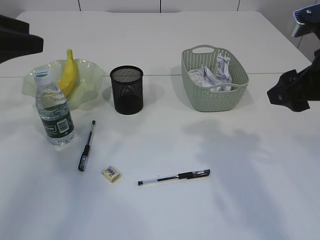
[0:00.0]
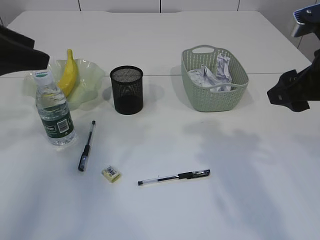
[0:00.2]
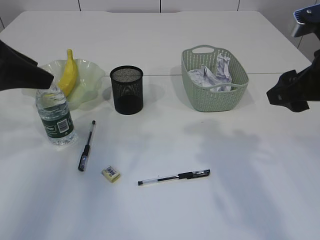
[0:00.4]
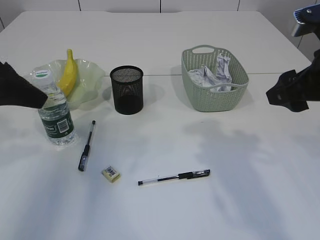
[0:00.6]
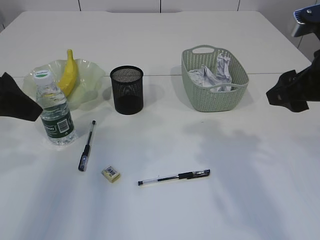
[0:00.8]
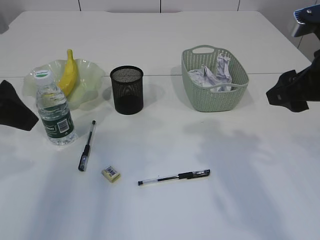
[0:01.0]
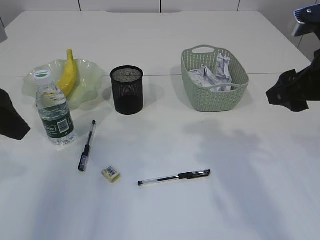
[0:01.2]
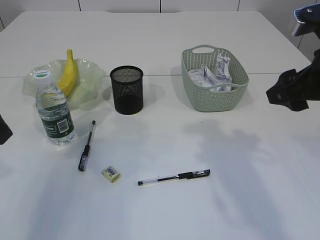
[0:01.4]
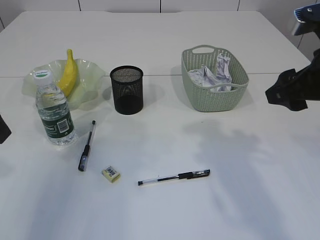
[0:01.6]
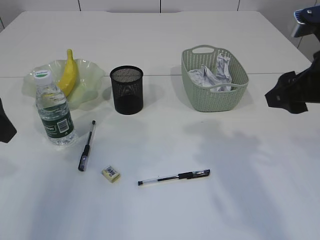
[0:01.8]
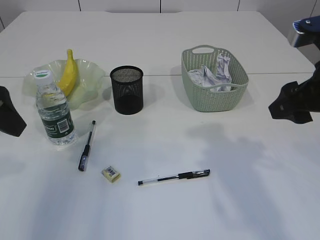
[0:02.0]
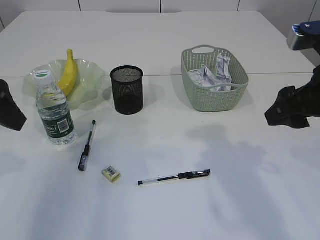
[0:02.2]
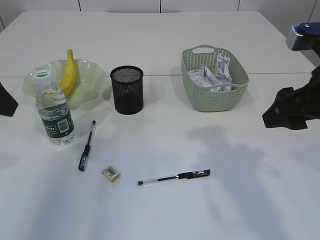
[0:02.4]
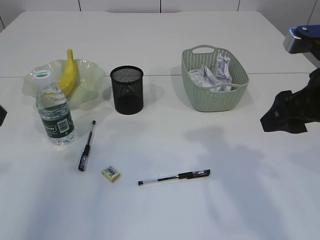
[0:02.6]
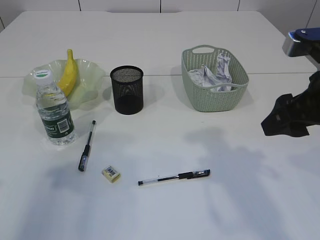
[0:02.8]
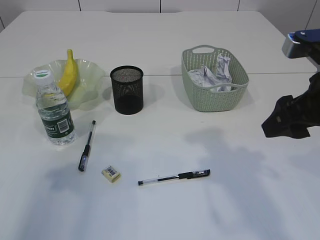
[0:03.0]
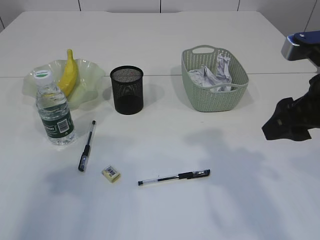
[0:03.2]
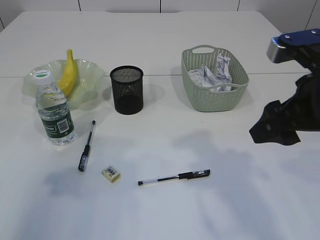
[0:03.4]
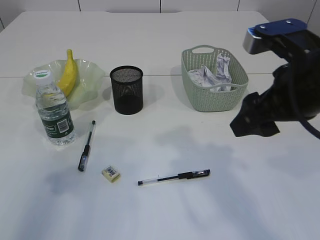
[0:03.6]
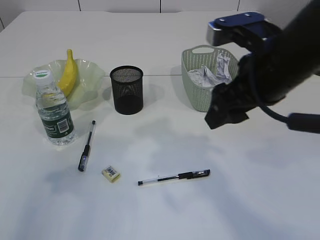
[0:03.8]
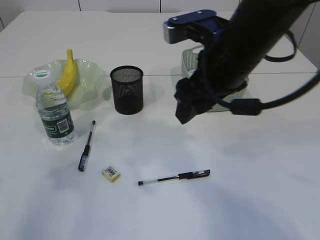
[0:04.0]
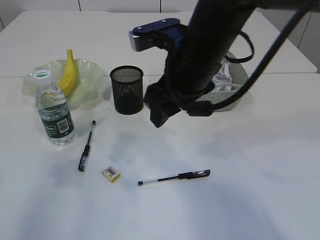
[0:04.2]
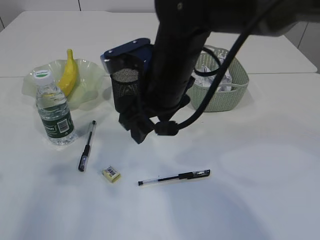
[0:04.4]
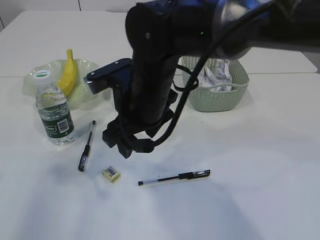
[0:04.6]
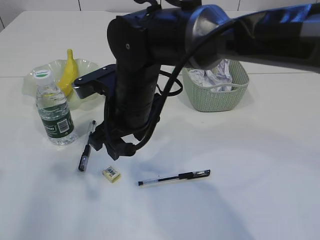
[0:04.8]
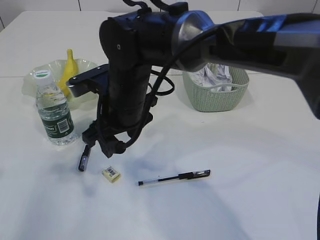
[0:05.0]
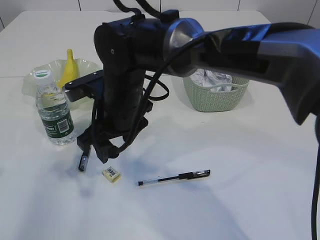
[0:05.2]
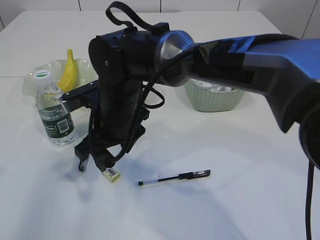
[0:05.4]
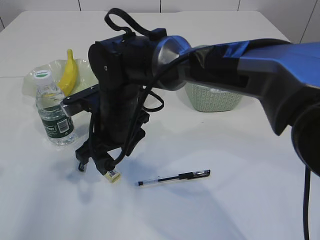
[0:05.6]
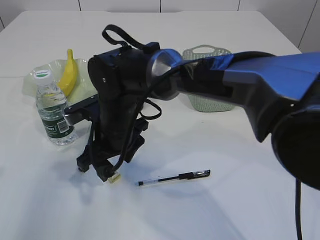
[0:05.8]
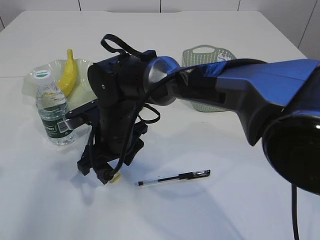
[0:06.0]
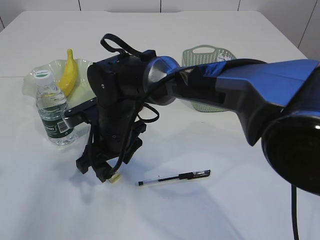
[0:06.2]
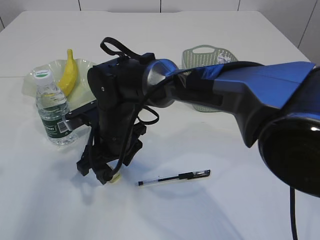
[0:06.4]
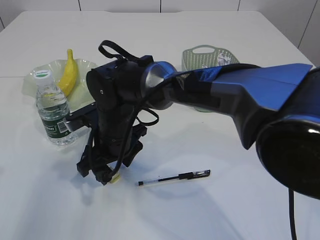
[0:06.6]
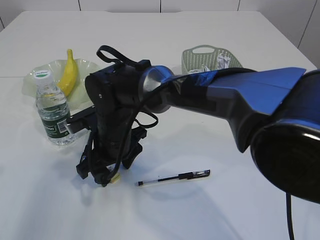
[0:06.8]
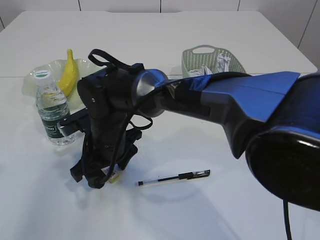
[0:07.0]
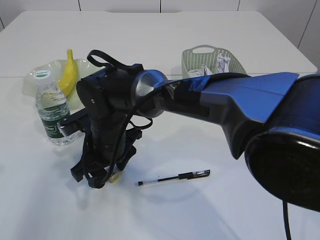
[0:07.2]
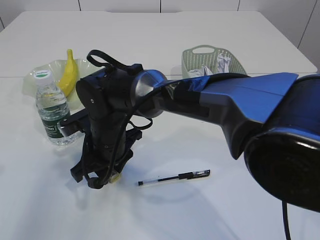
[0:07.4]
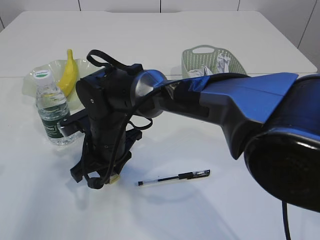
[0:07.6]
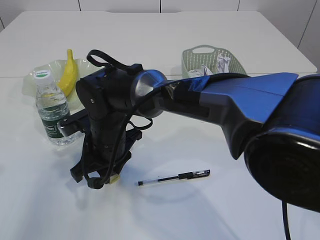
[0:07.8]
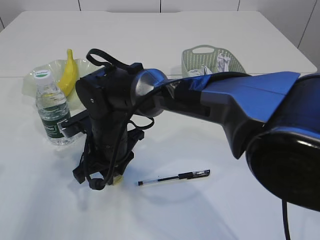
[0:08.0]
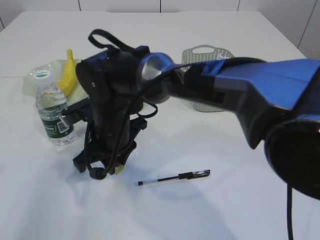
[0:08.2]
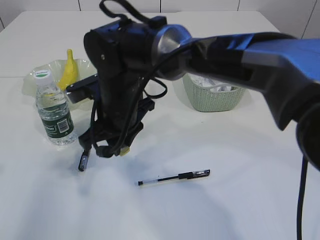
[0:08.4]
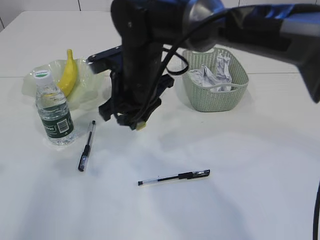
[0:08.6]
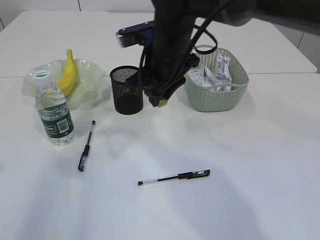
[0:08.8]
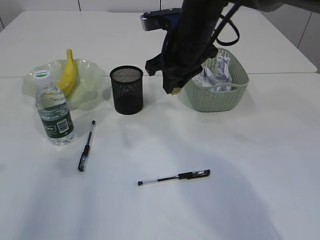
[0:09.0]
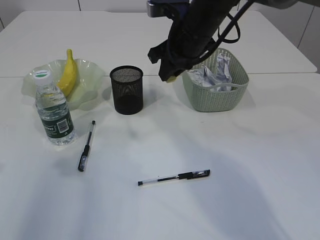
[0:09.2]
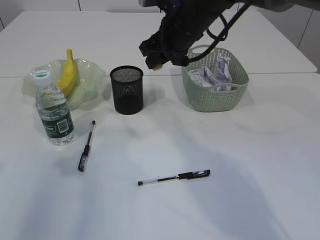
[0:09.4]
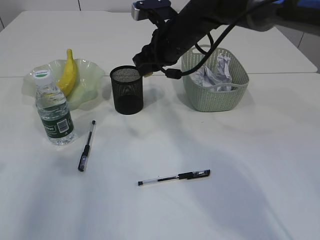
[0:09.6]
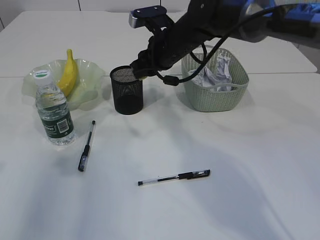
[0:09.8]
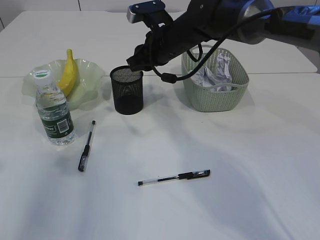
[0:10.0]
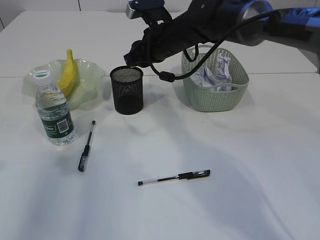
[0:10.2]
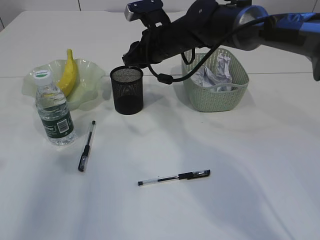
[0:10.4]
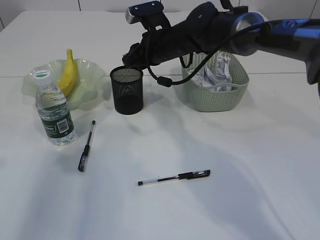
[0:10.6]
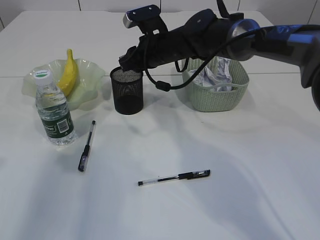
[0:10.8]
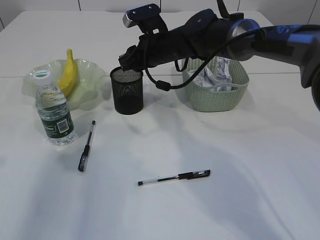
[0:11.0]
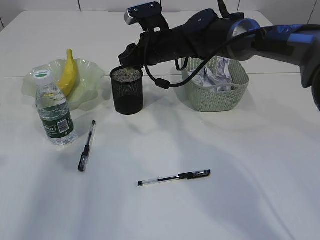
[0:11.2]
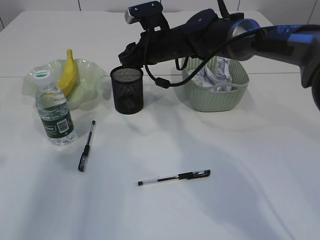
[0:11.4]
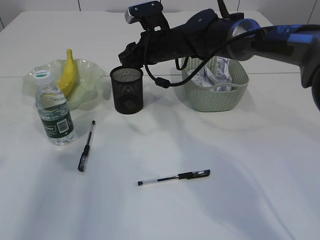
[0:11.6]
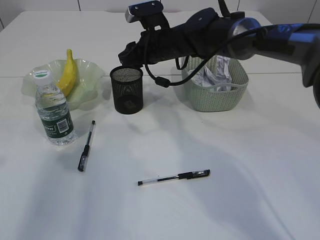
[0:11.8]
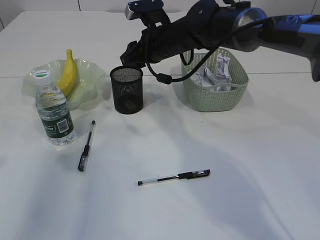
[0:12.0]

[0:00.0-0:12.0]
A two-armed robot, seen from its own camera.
Step, 0:00.0 to 0:08.4: Pick up the eraser.
0:00.0 to 0:01.6: The left gripper shifts some 5 cm backward.
0:03.0 to 0:04.4: The right gripper is displaced to the left by about 20 cm.
0:04.4 to 0:06.0: The right gripper travels downward and to the left by roughly 15 cm.
0:06.0 to 0:07.6: The right gripper closes.
0:07.6 to 0:09.0: The right gripper goes some 20 cm to the right, upward and forward.
0:09.0 to 0:10.4: The right gripper is displaced forward by some 5 cm.
0:10.4 to 0:12.0: There are only small adjustments of the grippers.

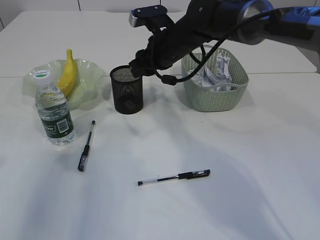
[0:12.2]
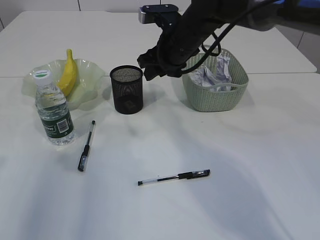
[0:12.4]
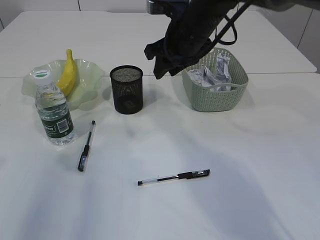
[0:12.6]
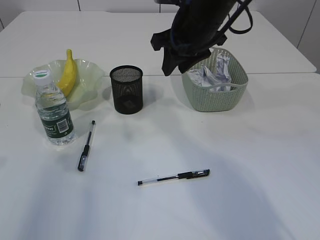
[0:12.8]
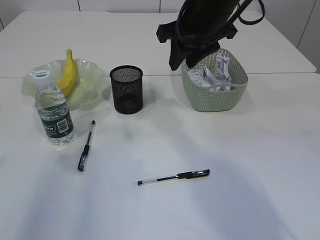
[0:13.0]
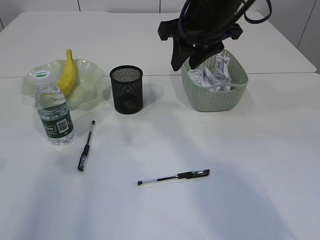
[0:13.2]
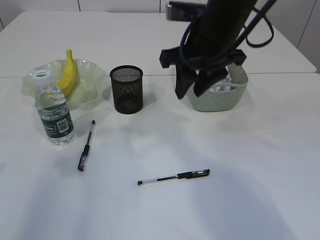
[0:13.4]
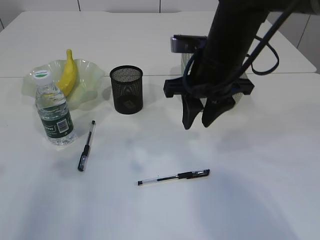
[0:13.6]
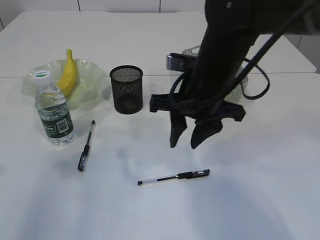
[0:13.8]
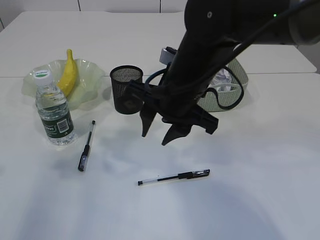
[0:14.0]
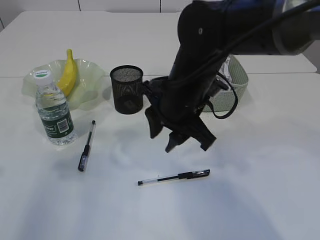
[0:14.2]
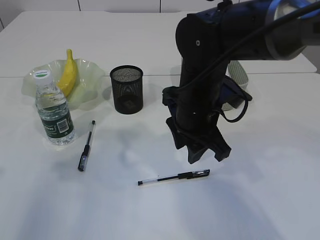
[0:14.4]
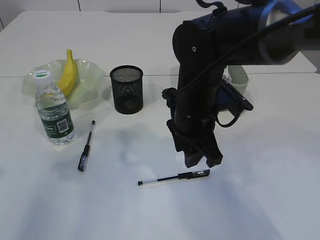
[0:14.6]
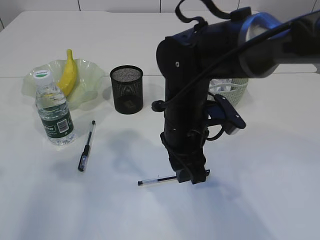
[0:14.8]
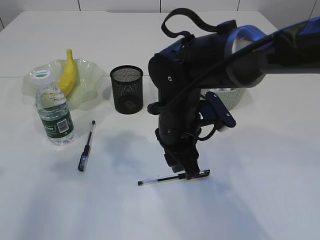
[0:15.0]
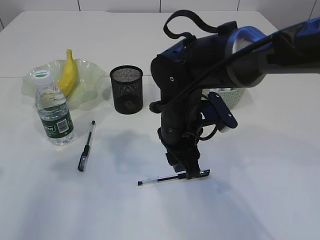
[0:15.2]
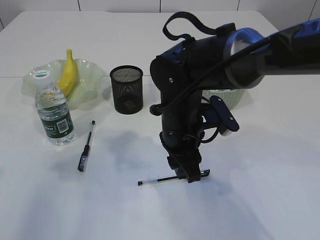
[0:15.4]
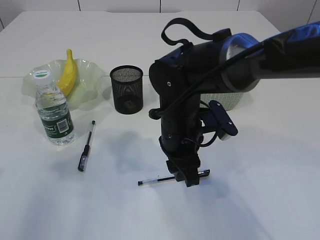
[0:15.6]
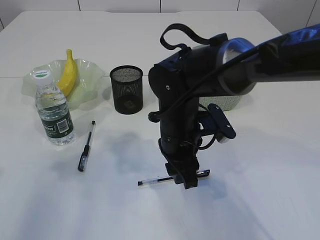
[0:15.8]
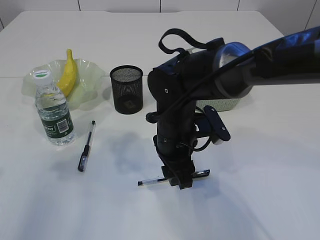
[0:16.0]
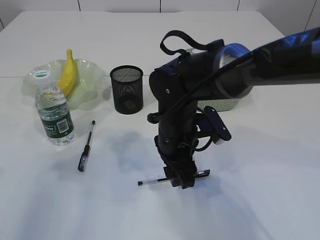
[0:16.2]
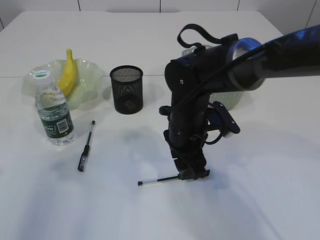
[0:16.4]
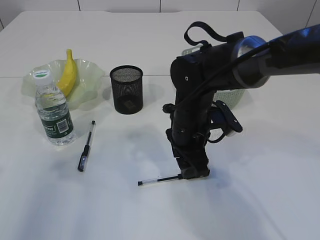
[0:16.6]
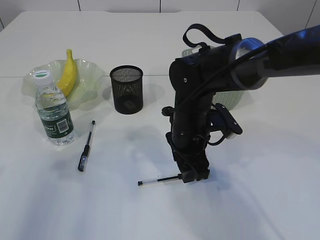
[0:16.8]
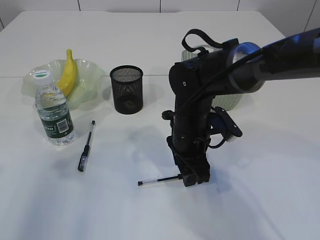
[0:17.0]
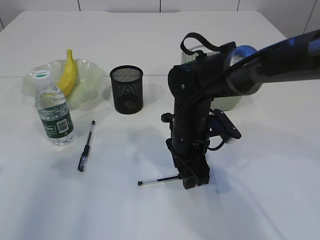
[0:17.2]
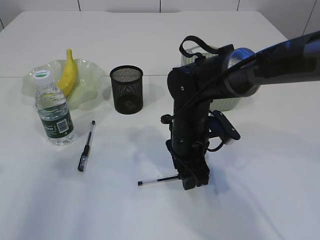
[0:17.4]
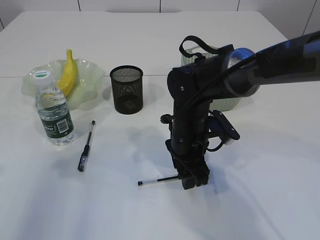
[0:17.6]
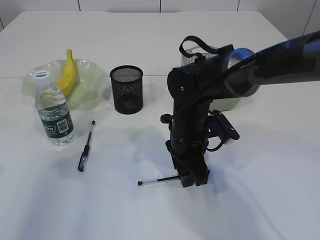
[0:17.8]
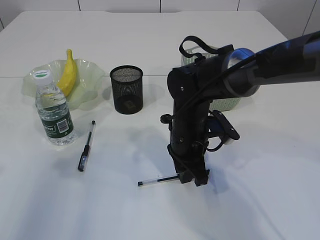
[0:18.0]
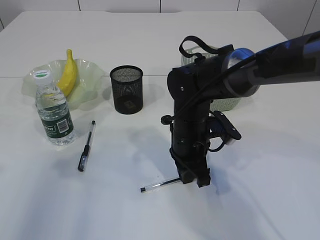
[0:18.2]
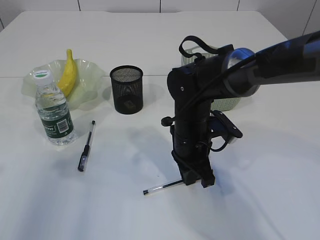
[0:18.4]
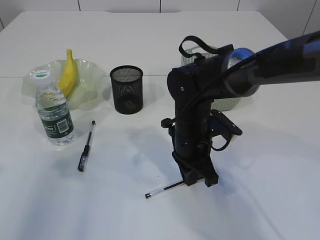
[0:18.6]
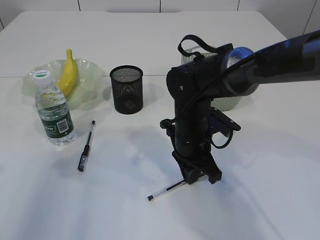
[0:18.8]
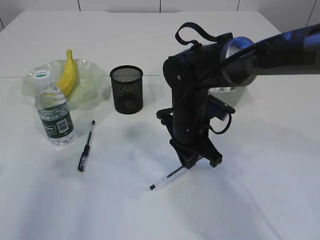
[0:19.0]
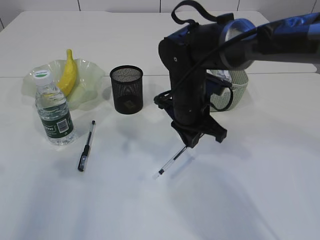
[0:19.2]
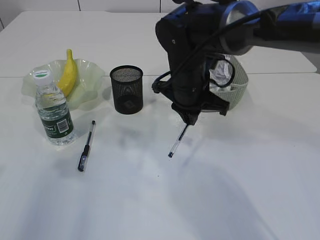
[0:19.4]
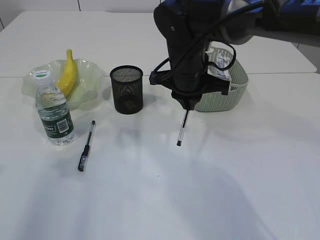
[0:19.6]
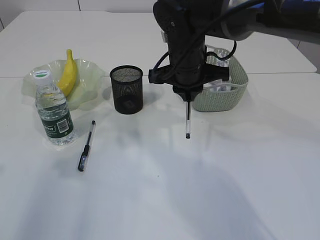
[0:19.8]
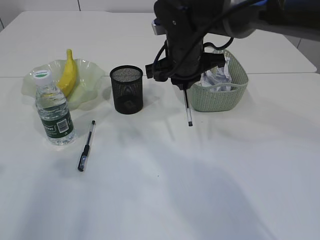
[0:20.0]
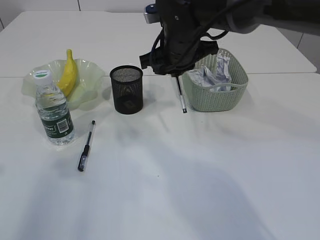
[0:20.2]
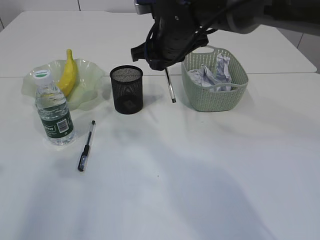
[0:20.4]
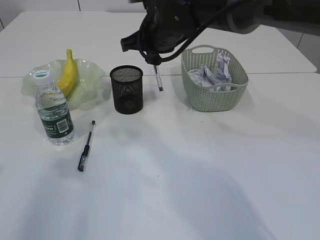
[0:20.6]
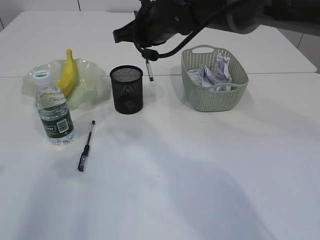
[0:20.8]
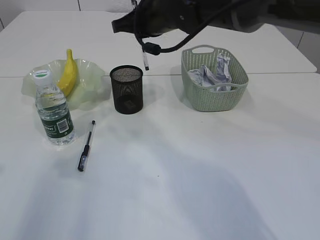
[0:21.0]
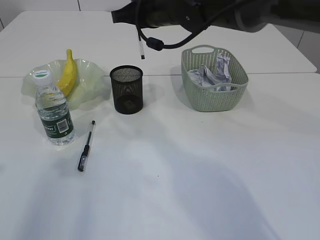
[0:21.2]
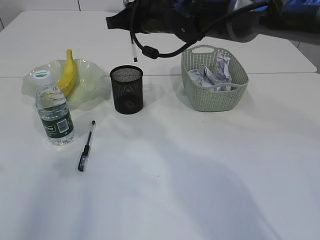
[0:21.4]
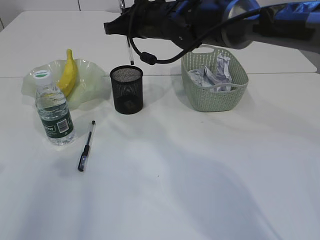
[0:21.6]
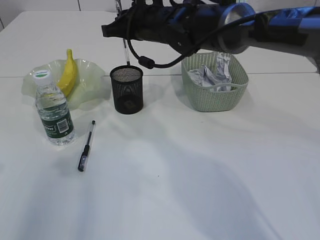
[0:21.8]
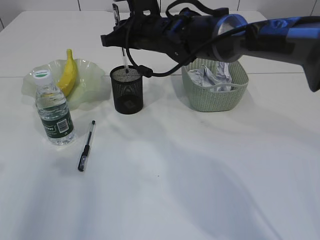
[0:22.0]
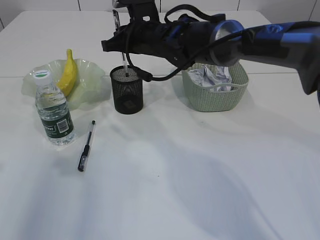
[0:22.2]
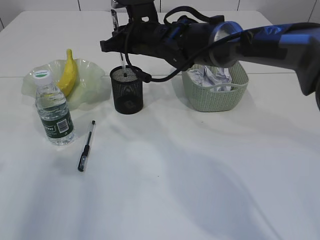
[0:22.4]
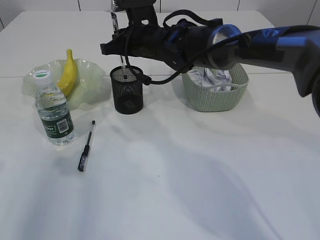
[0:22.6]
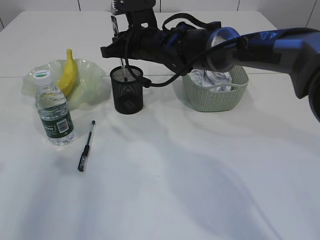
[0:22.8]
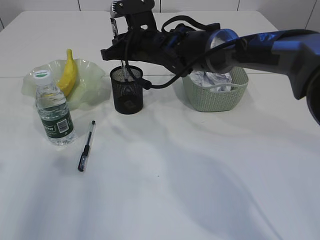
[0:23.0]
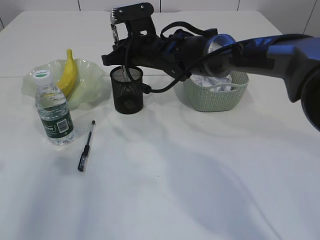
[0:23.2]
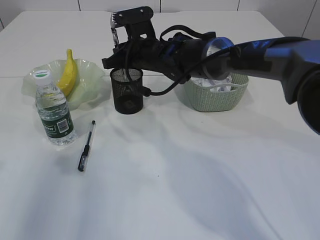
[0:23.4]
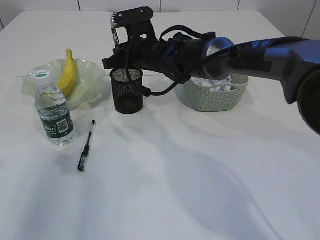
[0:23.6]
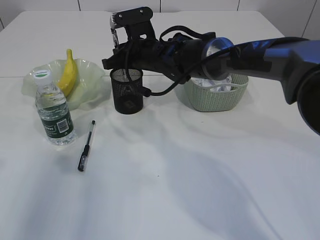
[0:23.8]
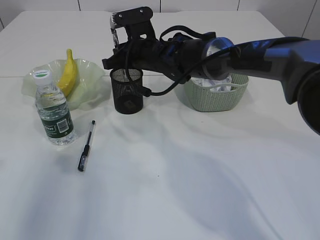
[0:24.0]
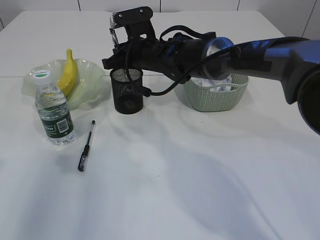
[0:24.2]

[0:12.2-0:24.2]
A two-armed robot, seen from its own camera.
Step, 0:12.4 to 0:19.0: Pick up the pen with right arm.
0:12.2 to 0:13.8: The right gripper moves backward, some 15 cm.
0:13.8 to 0:15.2: The right gripper is displaced downward by some 5 cm.
0:15.2 to 0:16.6: The grippers make only small movements.
0:16.6 to 0:18.2: The right gripper closes up.
0:18.2 to 0:19.8: The right gripper moves upward and forward, some 10 cm.
0:19.8 to 0:21.2: The right gripper heads upward and forward, covering approximately 10 cm.
0:21.2 to 0:22.6: The right gripper goes approximately 5 cm downward.
0:22.6 to 0:24.2: The grippers move only a little.
